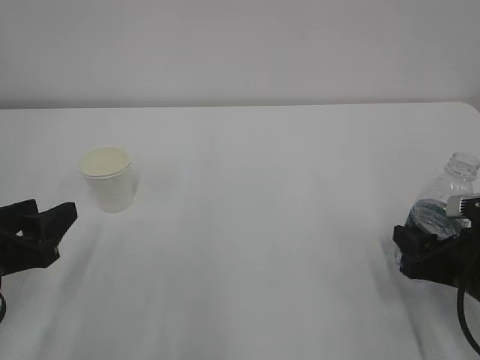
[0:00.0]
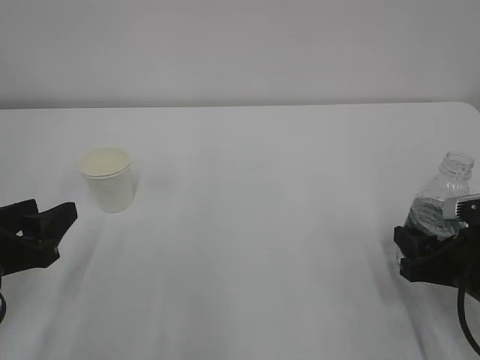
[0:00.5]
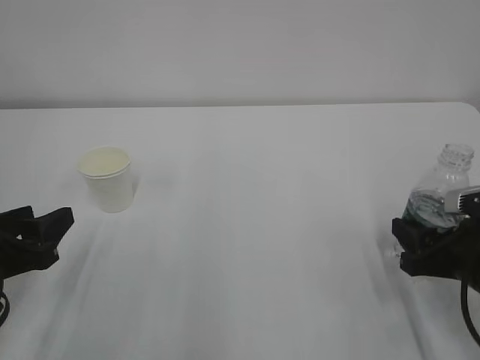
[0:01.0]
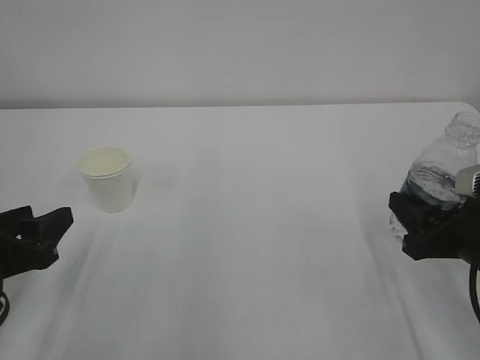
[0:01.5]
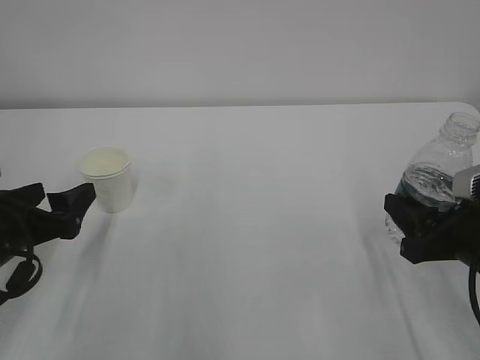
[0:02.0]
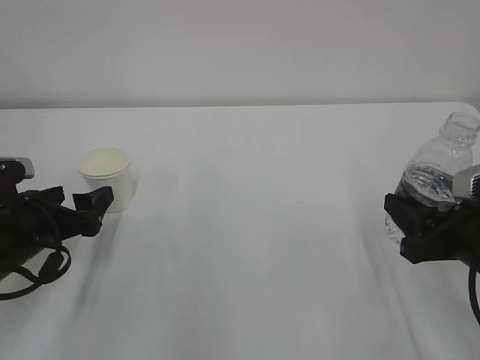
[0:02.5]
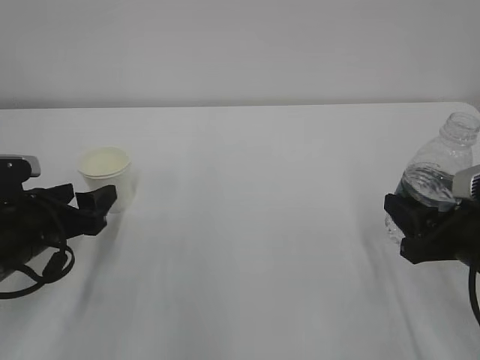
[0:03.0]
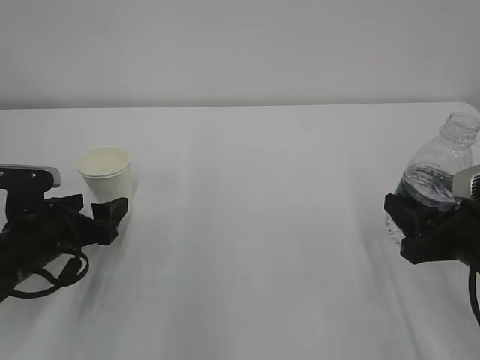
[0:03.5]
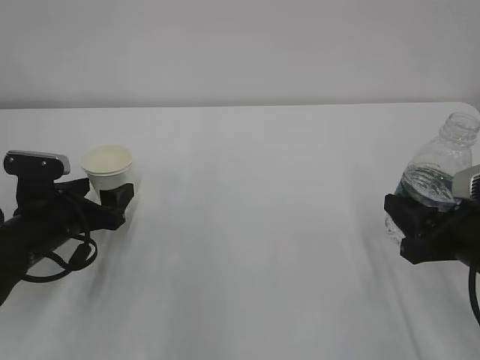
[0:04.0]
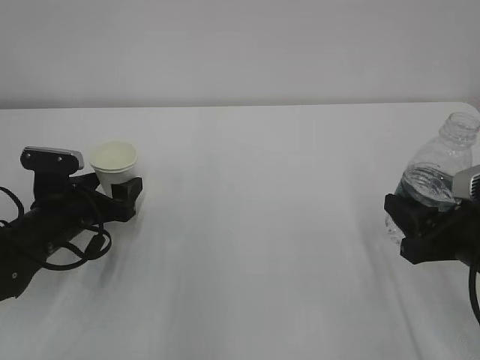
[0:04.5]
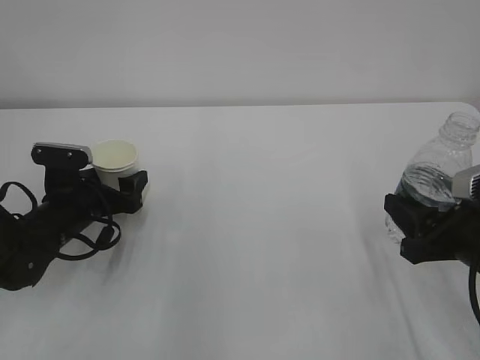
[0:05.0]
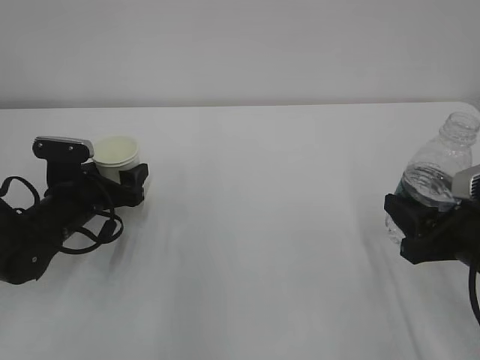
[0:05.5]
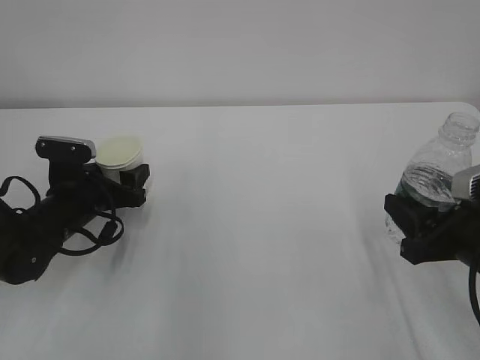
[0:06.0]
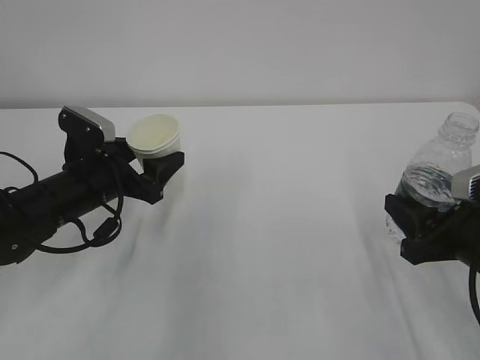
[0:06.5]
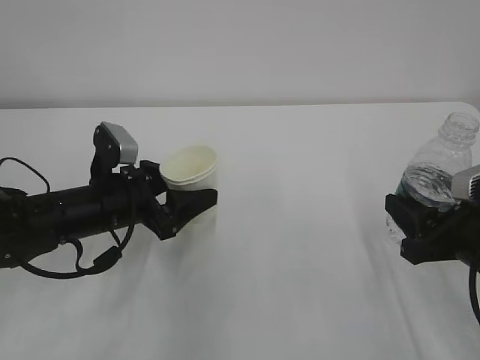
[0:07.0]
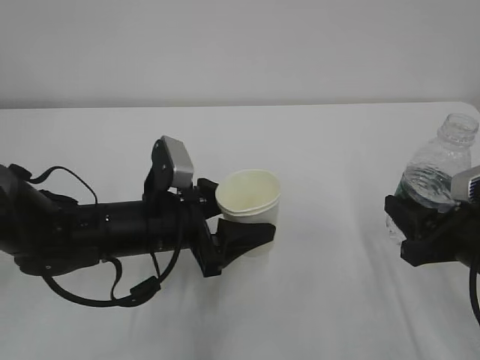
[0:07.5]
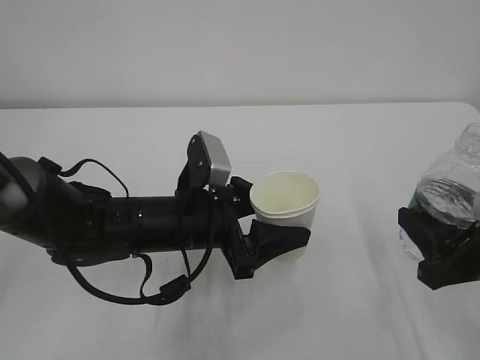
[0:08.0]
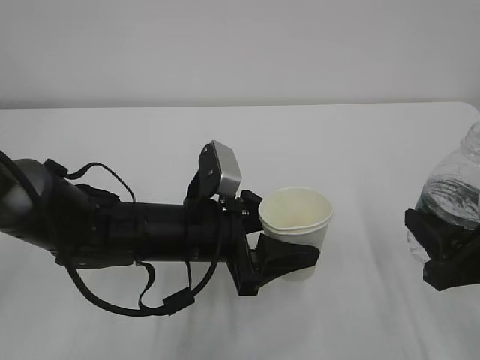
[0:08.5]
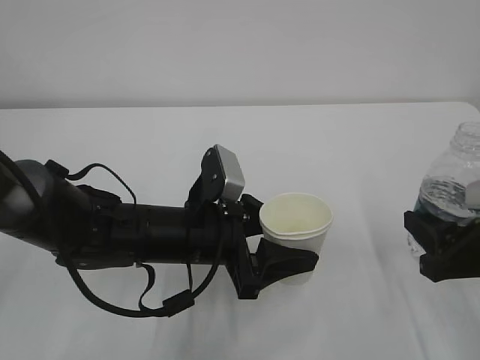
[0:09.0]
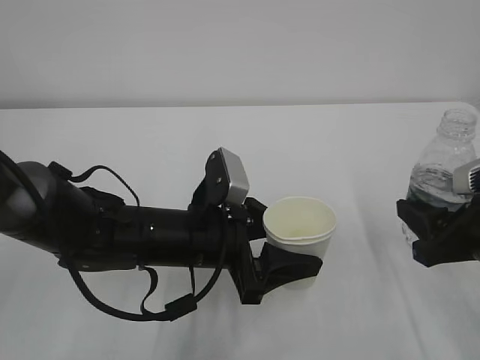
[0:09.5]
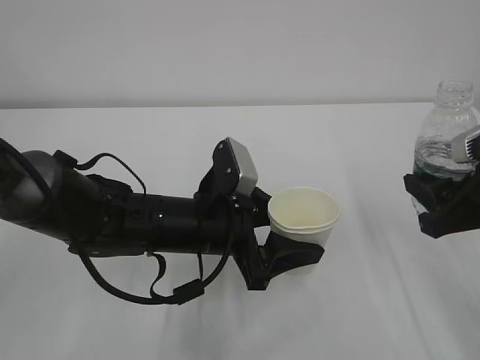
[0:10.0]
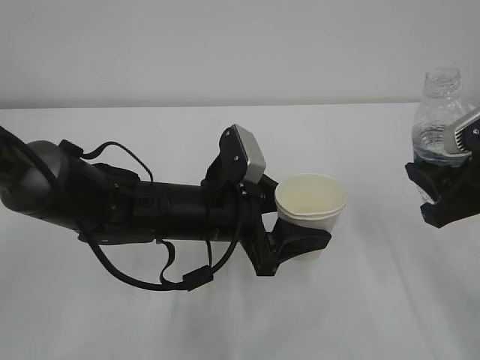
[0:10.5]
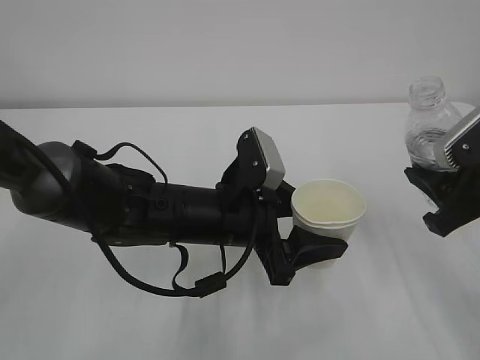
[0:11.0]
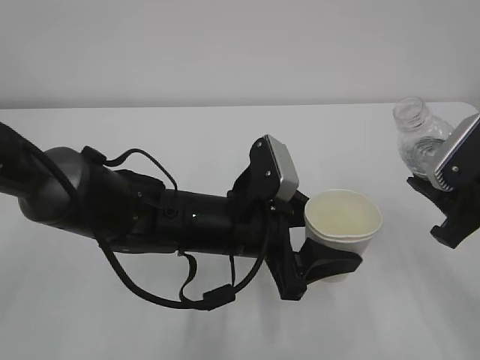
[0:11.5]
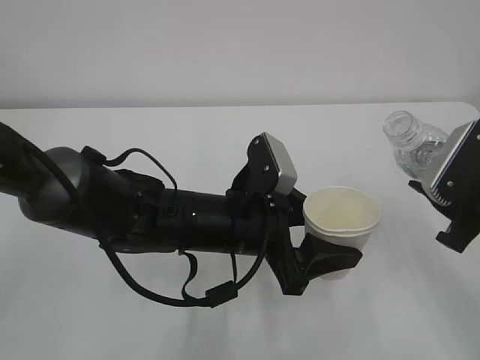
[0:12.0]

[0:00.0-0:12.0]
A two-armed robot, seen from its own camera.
0:00.0 to 0:02.0: The left gripper opens.
0:02.0 to 0:04.0: The left gripper goes roughly 5 cm forward.
0:04.0 to 0:06.0: The left gripper changes place by about 5 cm, and closes up.
0:06.0 to 0:08.0: The left gripper is displaced to the right and backward by approximately 15 cm.
0:08.0 to 0:10.0: The right gripper moves roughly 5 cm.

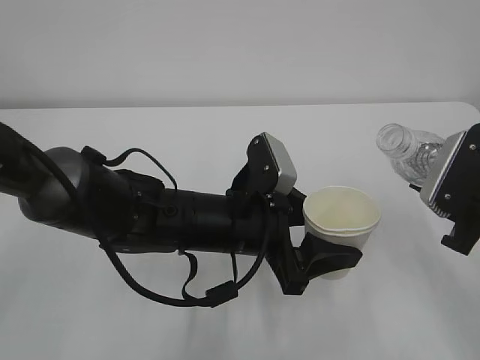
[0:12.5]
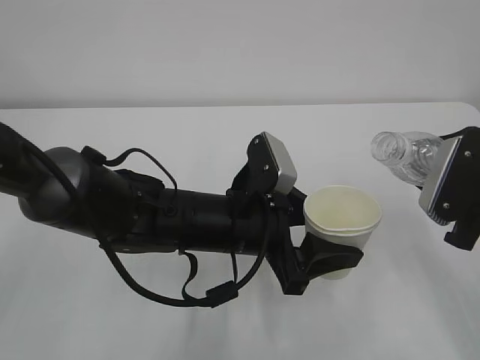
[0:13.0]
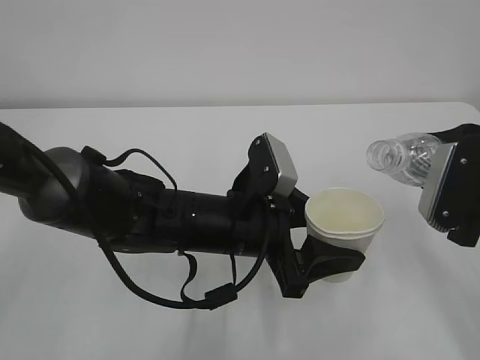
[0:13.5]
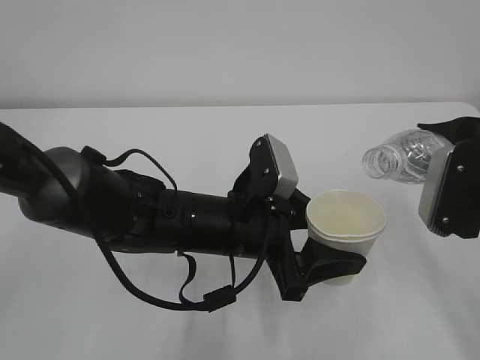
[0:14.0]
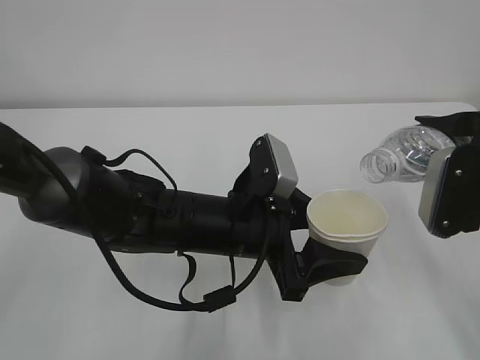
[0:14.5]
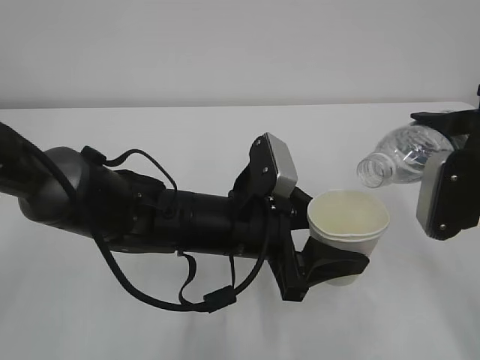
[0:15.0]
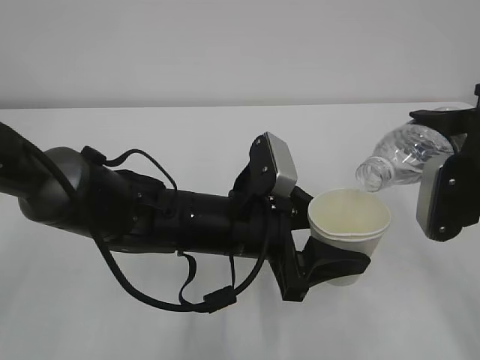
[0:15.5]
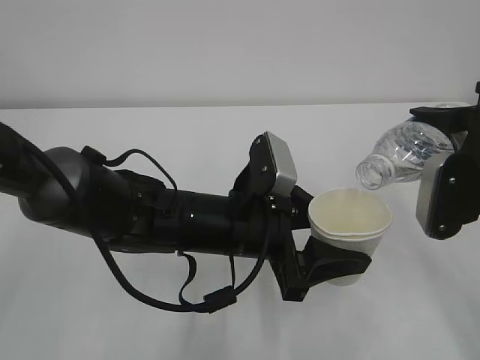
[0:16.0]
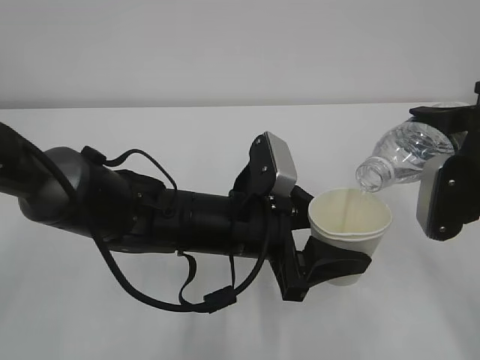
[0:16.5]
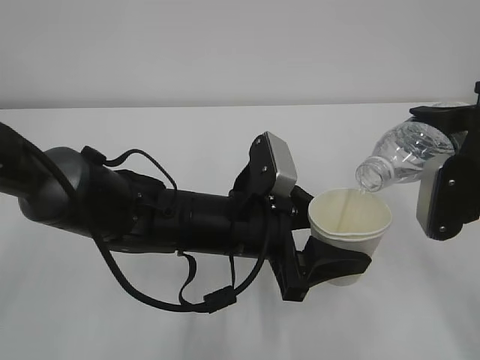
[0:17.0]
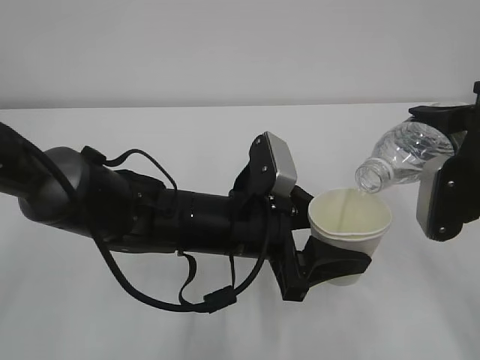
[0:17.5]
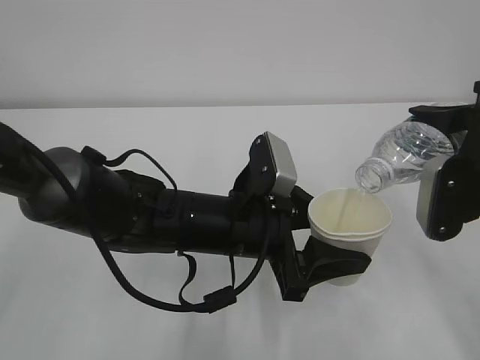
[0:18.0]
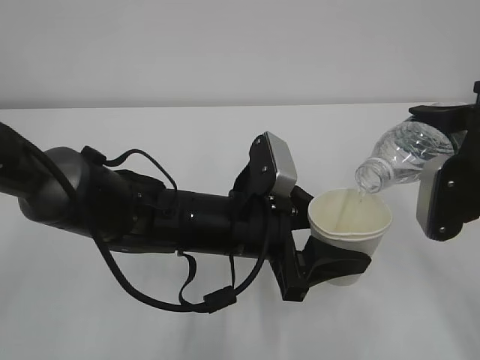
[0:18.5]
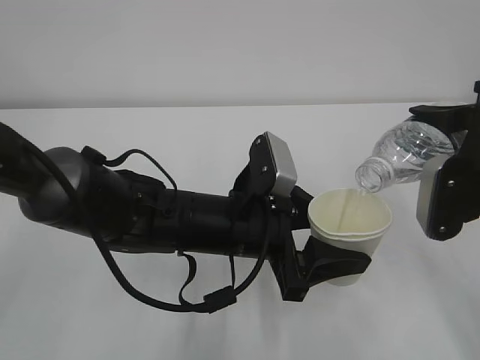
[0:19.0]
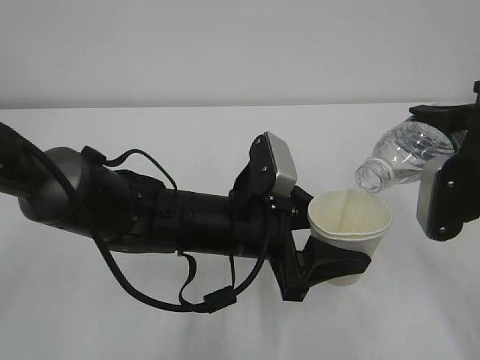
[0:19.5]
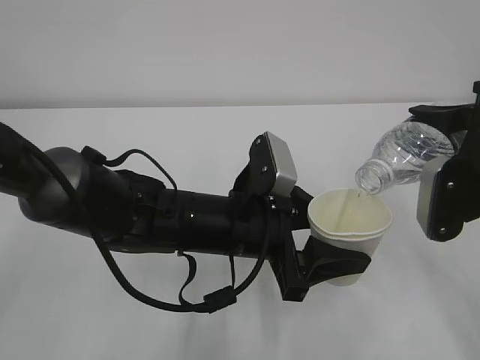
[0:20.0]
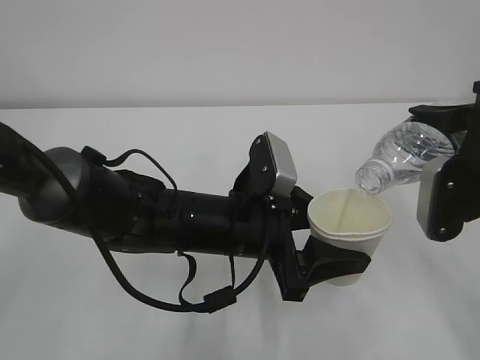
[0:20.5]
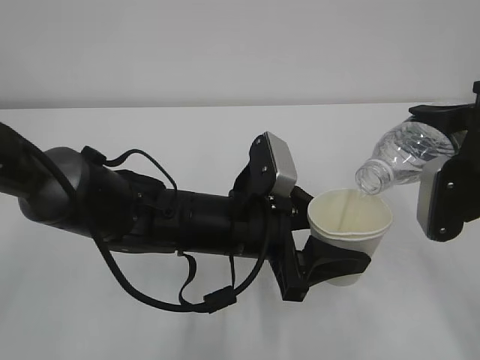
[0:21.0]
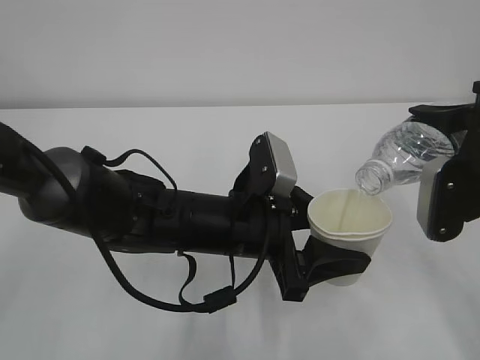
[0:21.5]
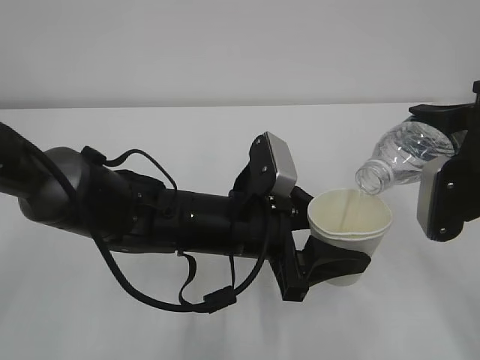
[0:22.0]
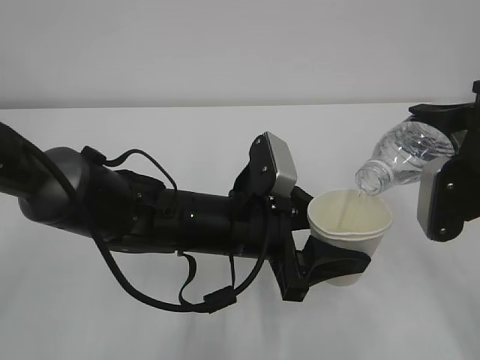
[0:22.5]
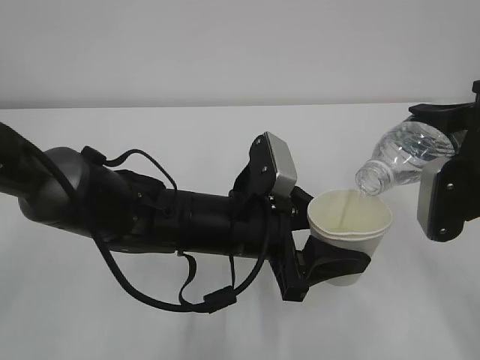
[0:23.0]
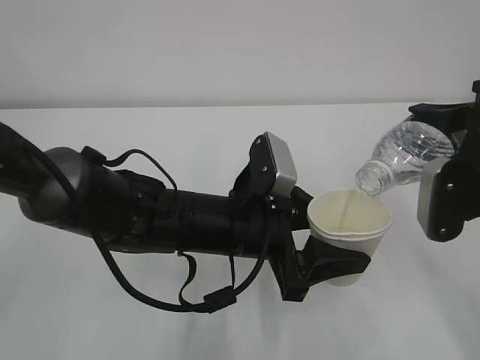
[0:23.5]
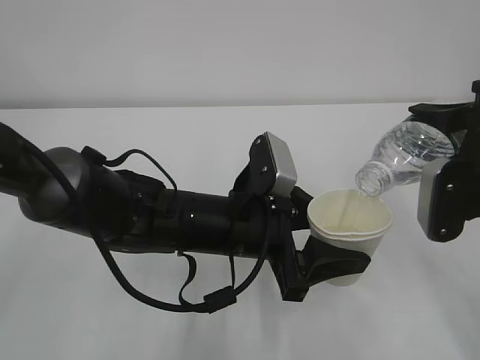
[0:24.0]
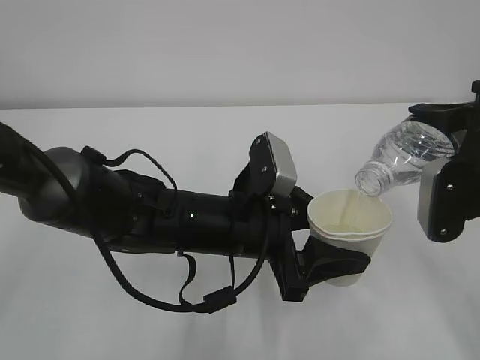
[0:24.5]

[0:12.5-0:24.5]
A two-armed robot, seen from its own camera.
0:14.5 to 0:16.5: The grippers make only small movements.
0:16.5 to 0:24.5: The two grippers keep their place.

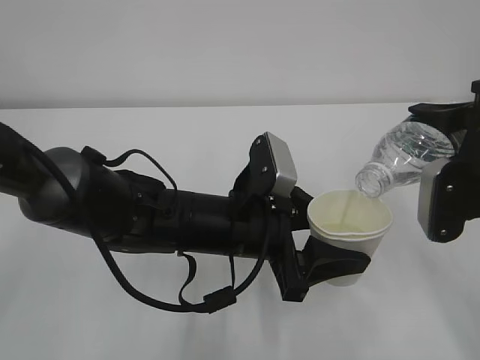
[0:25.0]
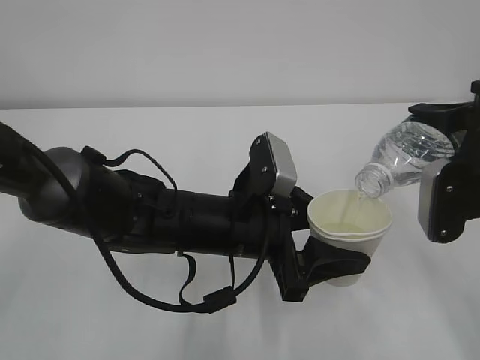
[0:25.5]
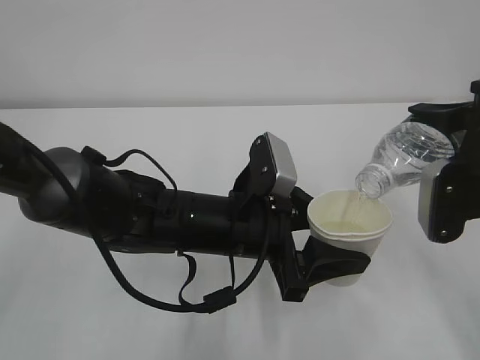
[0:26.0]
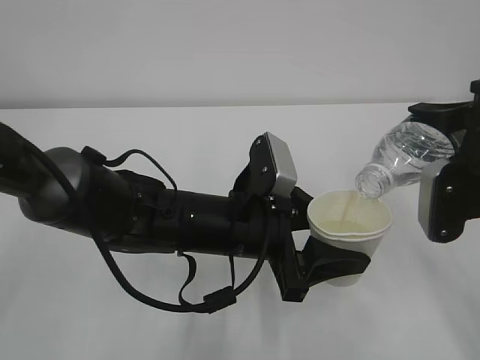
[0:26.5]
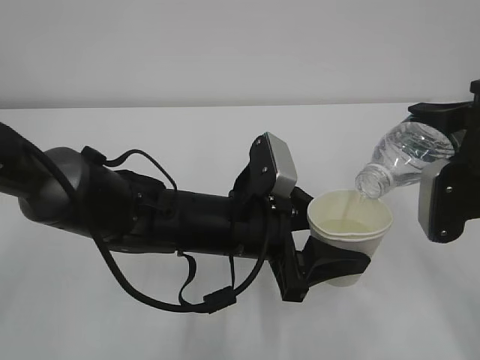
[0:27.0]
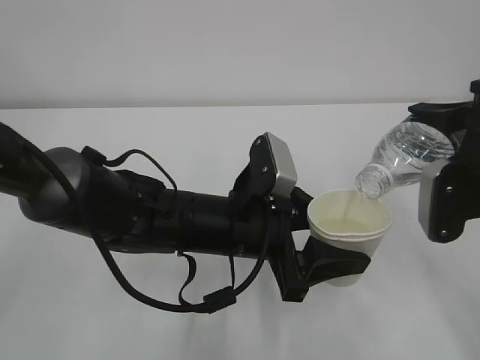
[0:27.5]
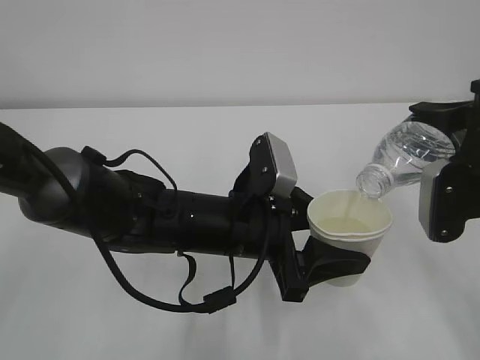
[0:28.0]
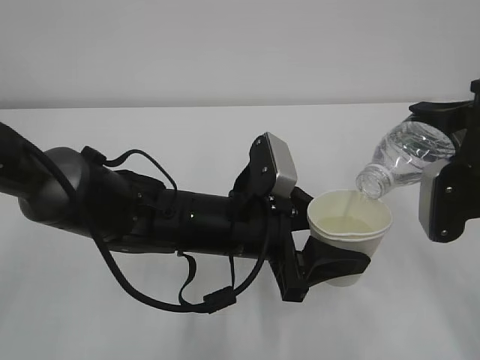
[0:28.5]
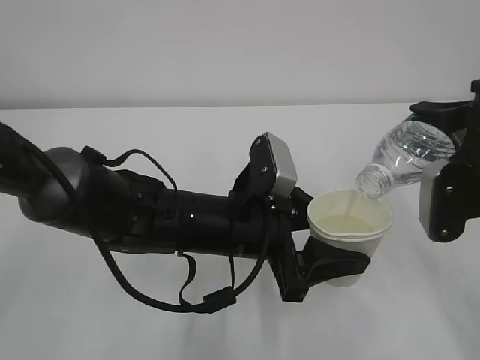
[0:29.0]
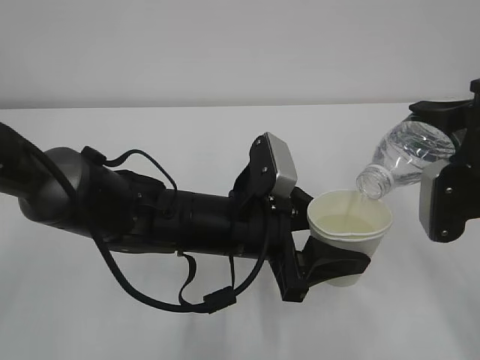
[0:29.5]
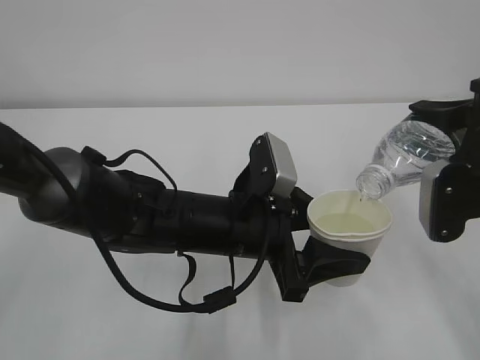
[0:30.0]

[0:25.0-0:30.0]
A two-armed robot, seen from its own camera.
0:25.0 to 0:30.0: The two grippers keep their place.
